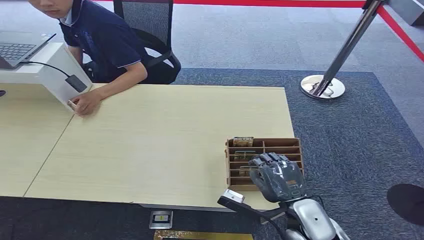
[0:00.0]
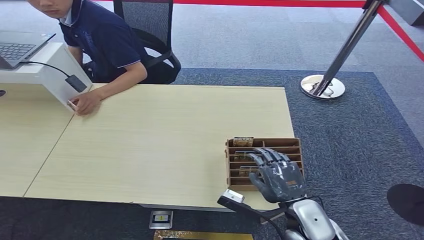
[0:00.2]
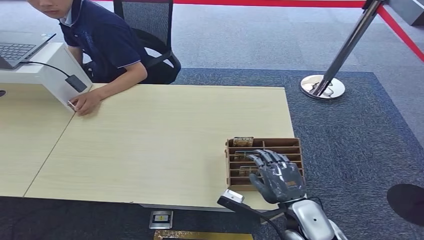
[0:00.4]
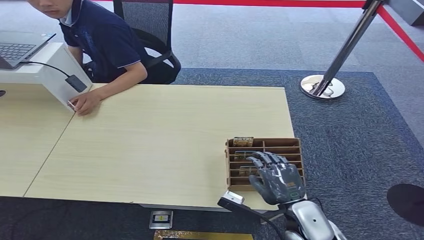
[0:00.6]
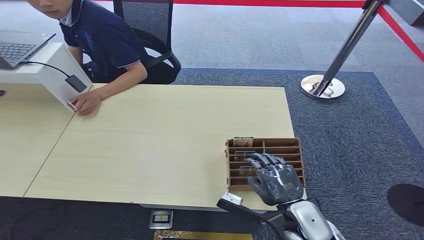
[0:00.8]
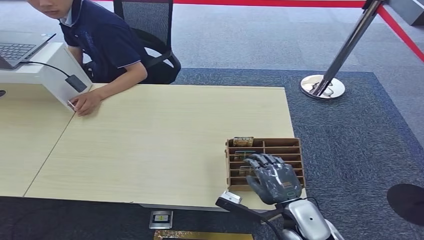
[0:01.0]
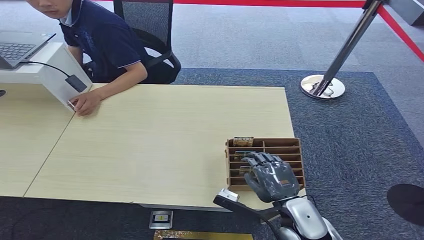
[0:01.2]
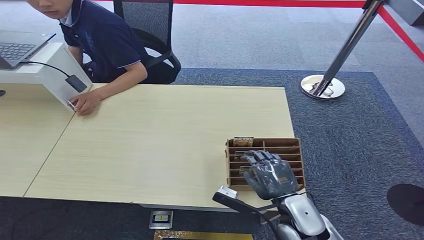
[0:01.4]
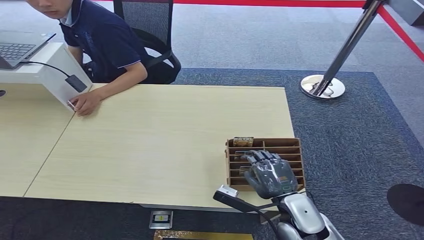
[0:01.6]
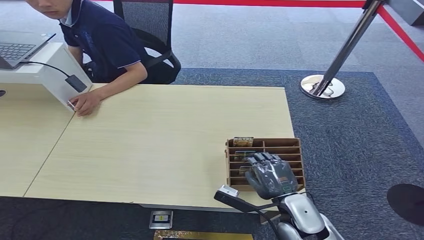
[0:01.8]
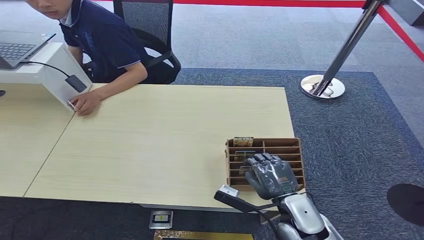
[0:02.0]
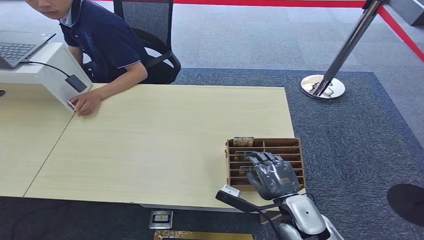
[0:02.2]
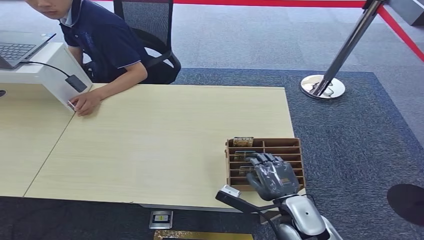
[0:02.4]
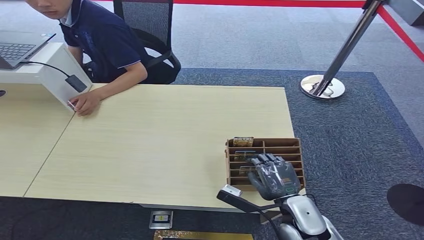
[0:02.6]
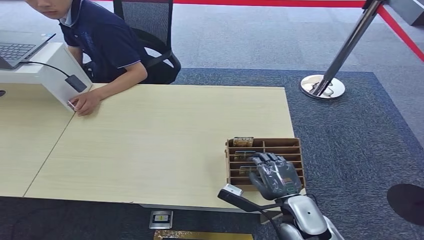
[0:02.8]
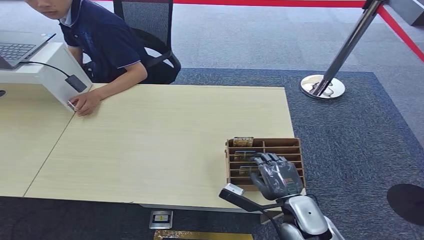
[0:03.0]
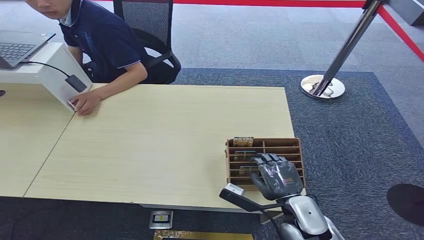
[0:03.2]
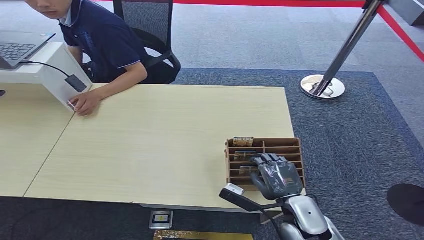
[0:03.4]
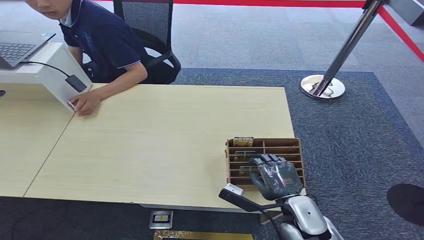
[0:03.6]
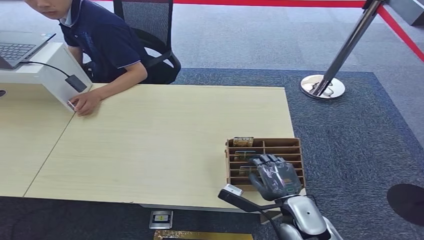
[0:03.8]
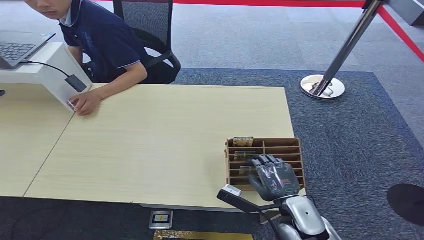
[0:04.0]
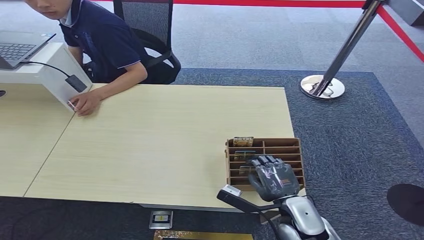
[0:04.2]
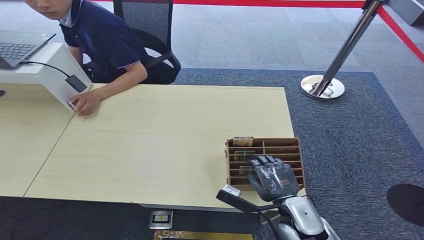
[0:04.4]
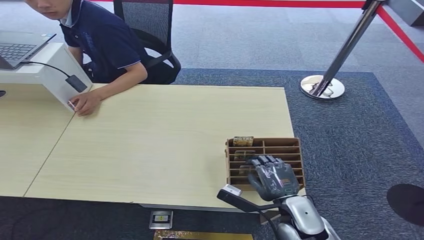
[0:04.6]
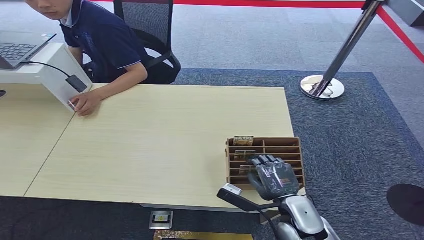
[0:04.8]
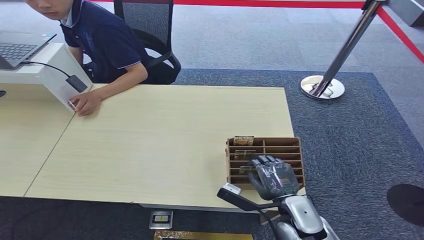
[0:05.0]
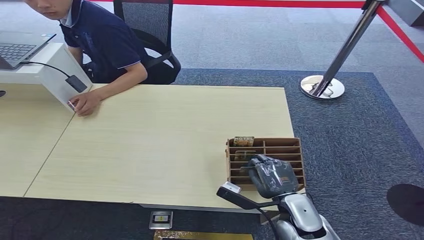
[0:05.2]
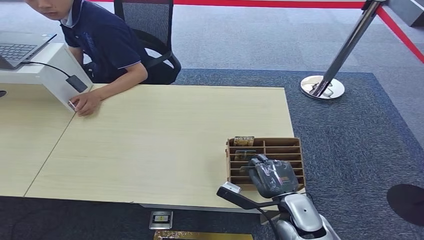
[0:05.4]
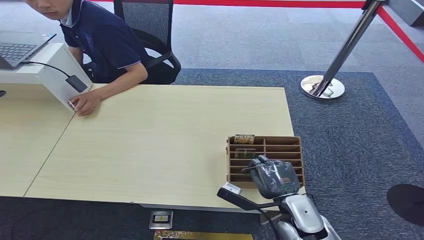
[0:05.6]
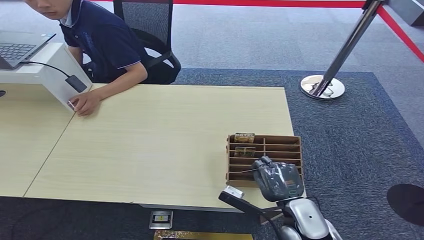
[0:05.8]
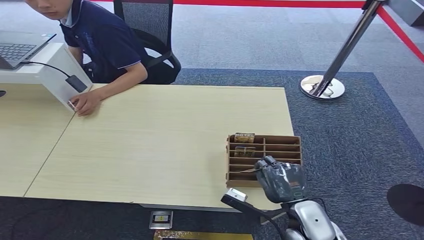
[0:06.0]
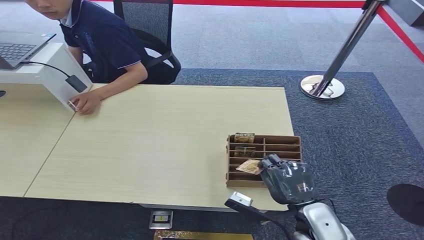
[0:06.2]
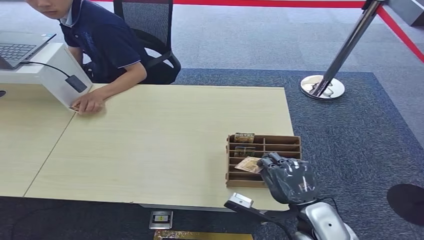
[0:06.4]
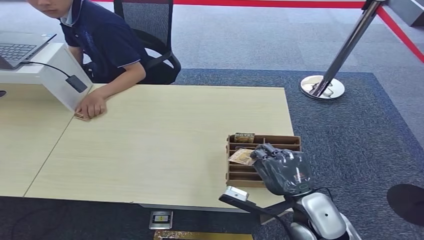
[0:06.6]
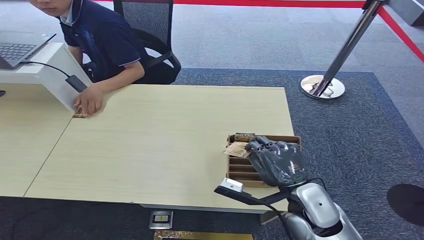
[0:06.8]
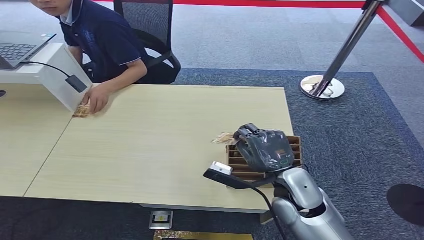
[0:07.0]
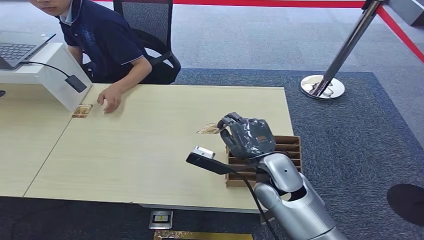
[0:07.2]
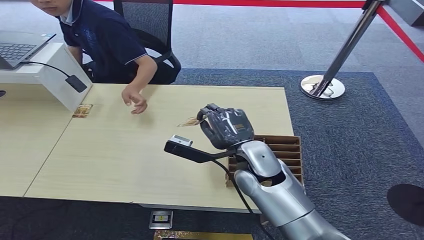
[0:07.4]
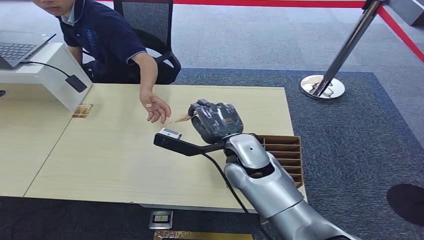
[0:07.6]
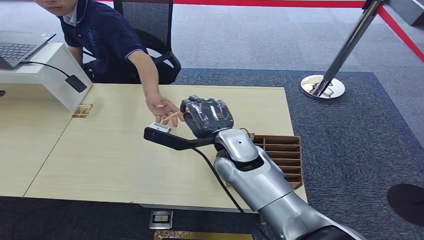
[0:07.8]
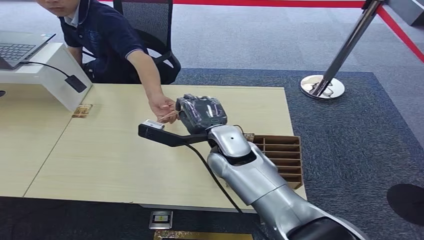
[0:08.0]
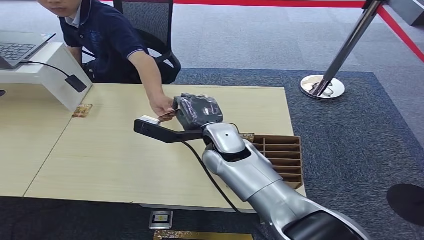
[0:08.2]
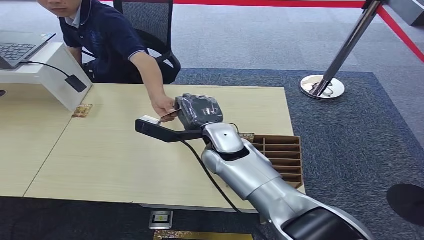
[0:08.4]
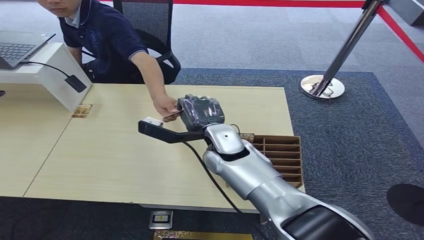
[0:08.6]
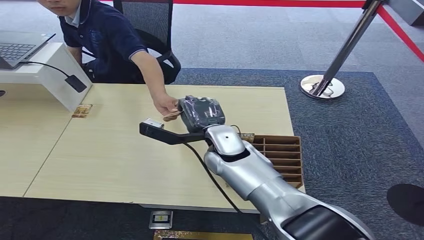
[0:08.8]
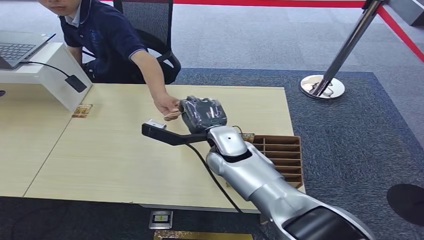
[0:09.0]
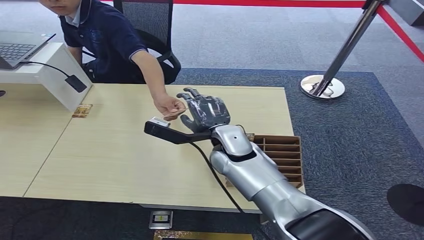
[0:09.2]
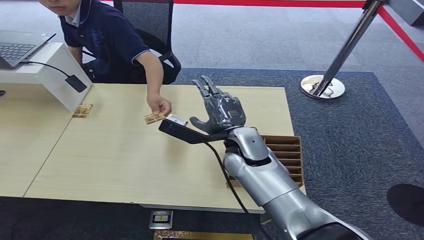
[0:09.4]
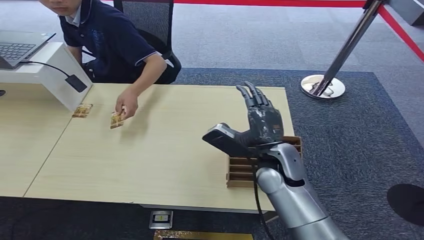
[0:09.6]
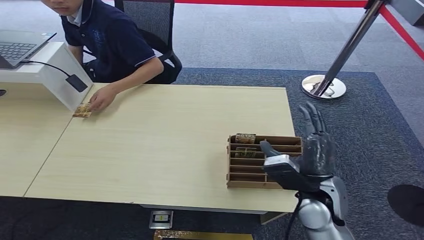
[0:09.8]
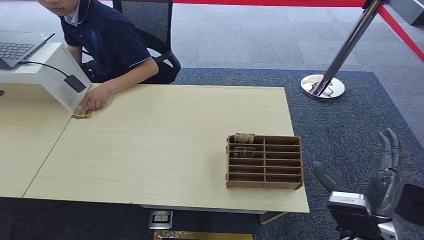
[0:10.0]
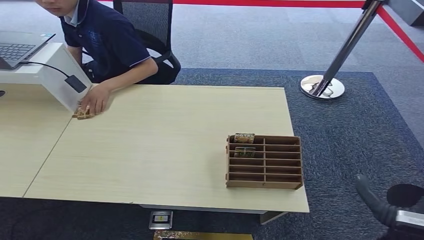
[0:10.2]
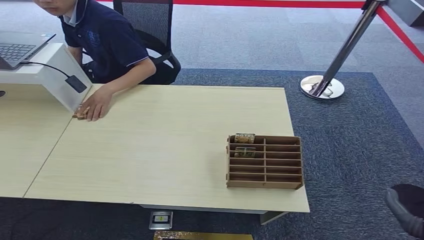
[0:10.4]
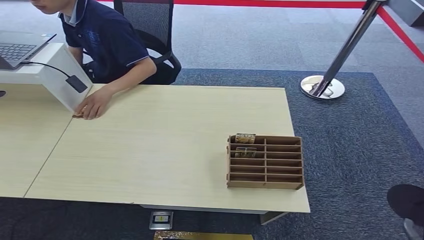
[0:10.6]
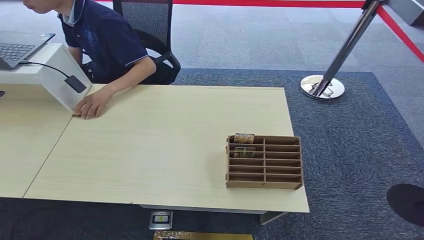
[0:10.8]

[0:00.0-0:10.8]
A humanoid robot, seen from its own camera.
Task of the whole recording: Pick up the card and hand it over to the target person.
Step, 0:00.0 to 0:07.4: Pick up the key card from the card box.
Step, 0:07.6 to 0:10.8: Hand the key card to the target.
0:01.6 to 0:03.0: Both hands stay about where they are.
0:03.0 to 0:04.6: Both hands stay about where they are.
0:04.6 to 0:06.2: The right hand heads upward, covering approximately 5 cm.
0:06.2 to 0:07.8: The right hand travels forward, to the left and upward by roughly 25 cm.
0:07.8 to 0:09.2: The hands make only small movements.
0:09.2 to 0:10.8: The right hand goes roughly 50 cm backward, downward and to the right.

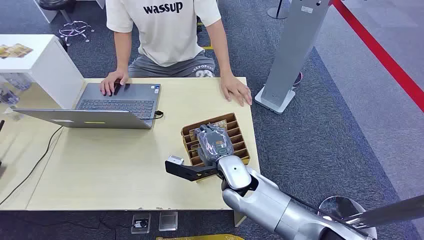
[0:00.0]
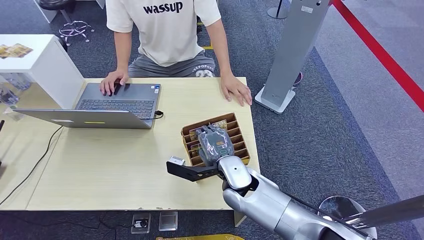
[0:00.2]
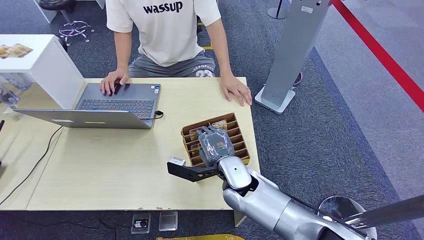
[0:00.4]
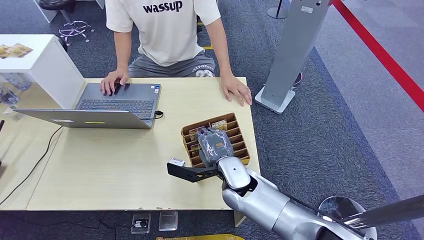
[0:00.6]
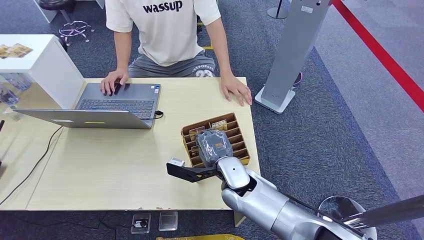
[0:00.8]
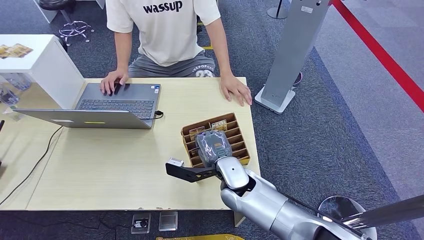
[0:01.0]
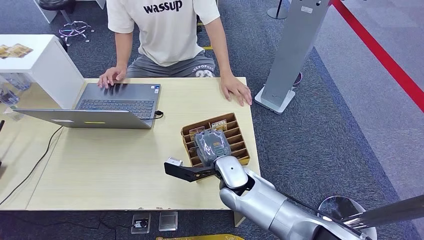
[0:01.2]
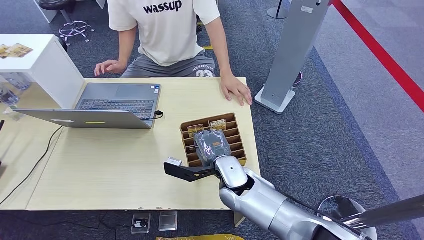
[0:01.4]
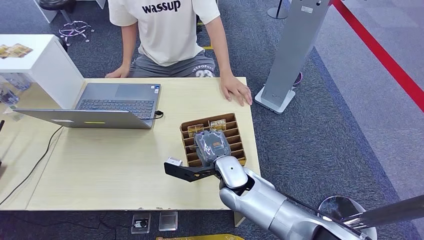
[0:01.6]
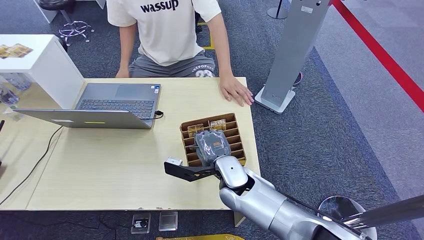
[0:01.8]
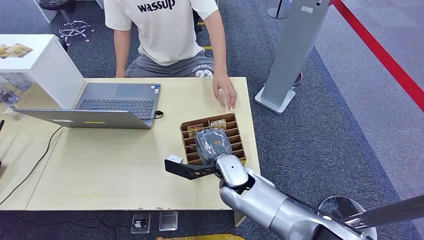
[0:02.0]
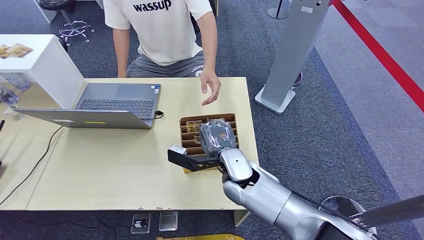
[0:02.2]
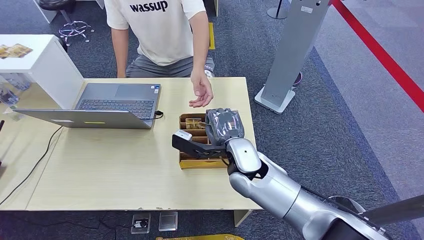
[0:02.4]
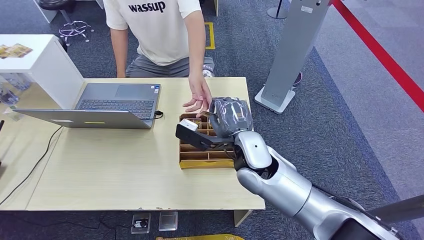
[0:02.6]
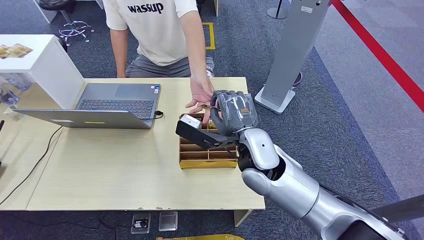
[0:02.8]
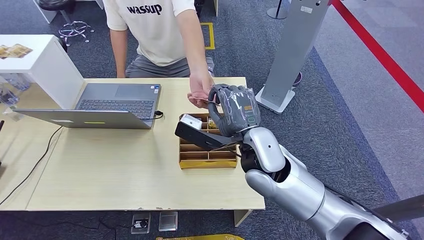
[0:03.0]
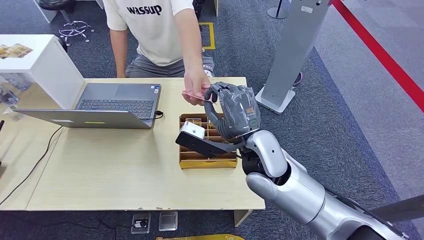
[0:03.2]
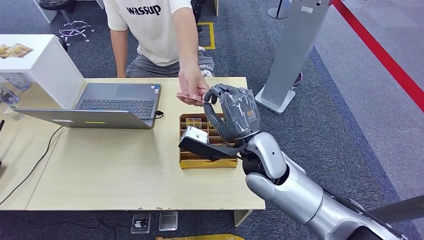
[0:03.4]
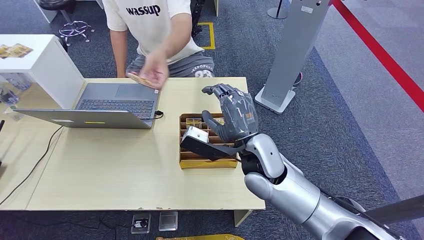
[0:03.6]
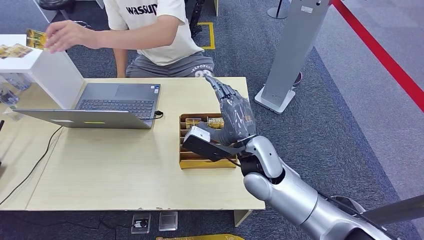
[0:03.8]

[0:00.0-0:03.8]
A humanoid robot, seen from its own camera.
Task of the whole recording: Pick up the card and hand it over to the target person.
Step, 0:00.0 to 0:02.2: Pick up the key card from the card box.
Step, 0:02.8 to 0:03.8: Hand the key card to the target.
0:01.2 to 0:02.6: The right hand shifts approximately 15 cm upward.
0:02.6 to 0:03.8: The right hand shifts some 10 cm downward.
